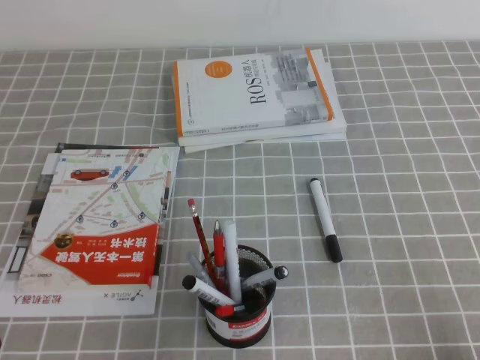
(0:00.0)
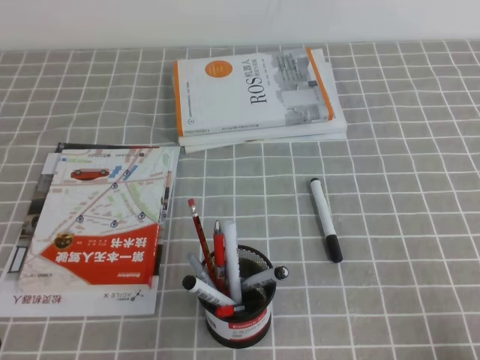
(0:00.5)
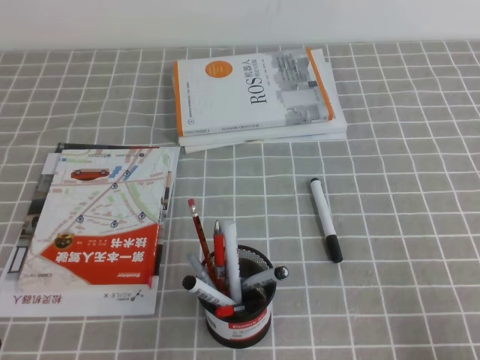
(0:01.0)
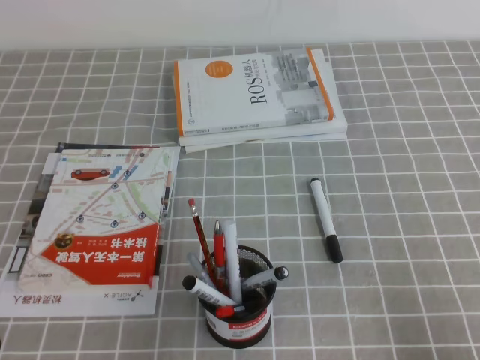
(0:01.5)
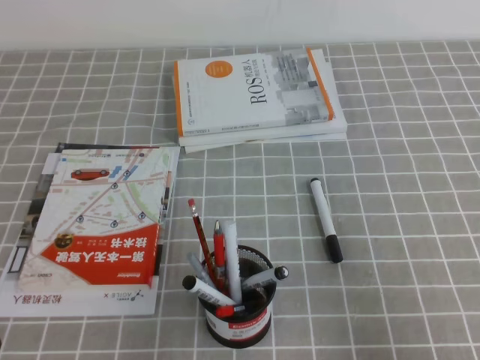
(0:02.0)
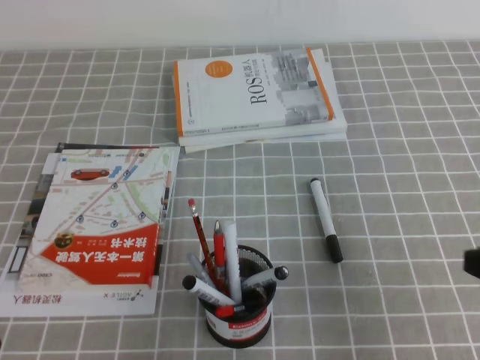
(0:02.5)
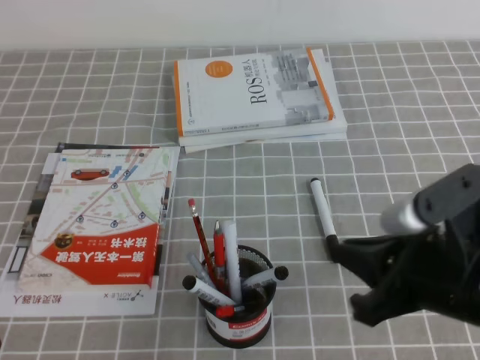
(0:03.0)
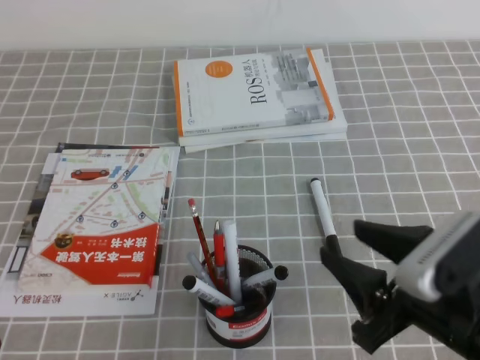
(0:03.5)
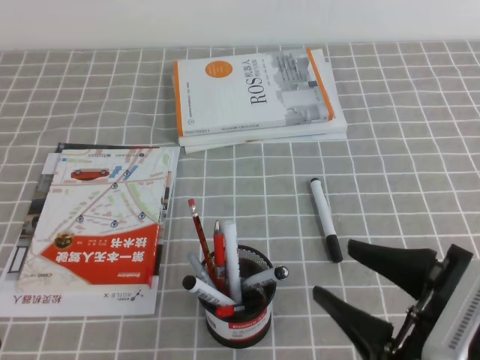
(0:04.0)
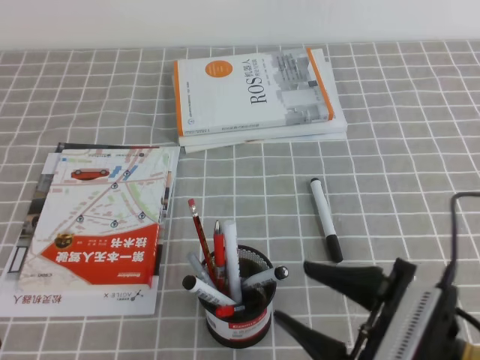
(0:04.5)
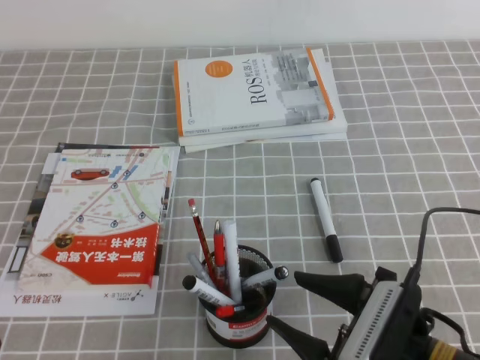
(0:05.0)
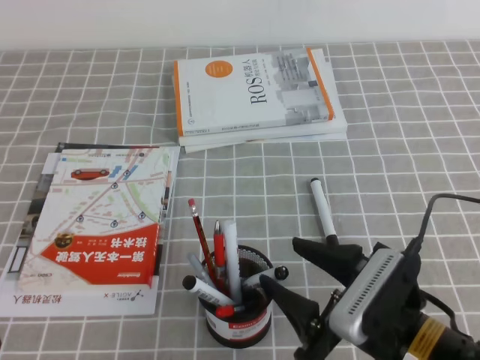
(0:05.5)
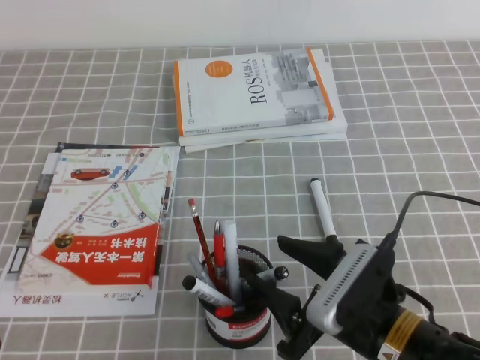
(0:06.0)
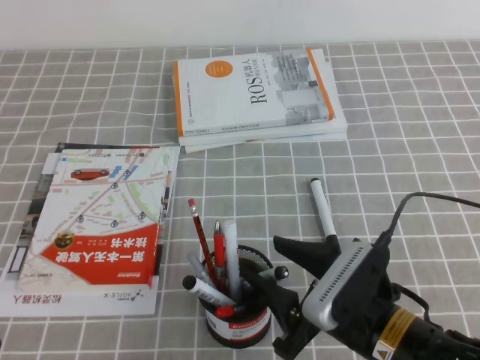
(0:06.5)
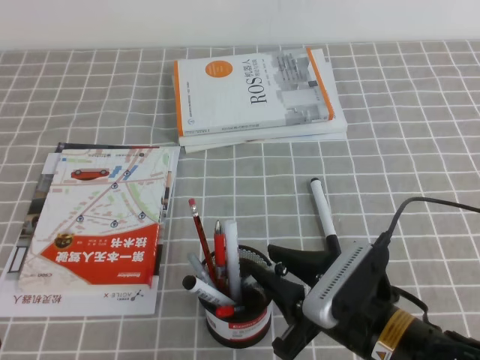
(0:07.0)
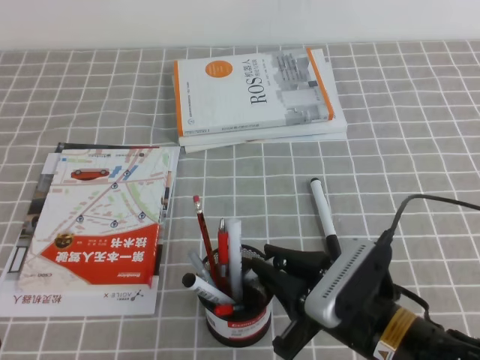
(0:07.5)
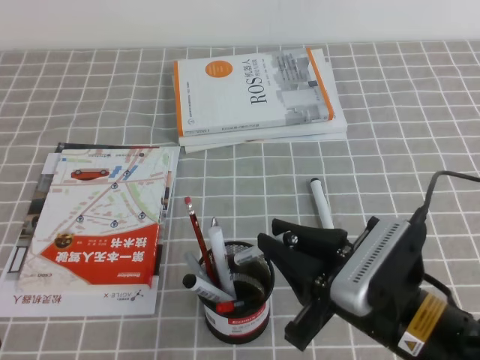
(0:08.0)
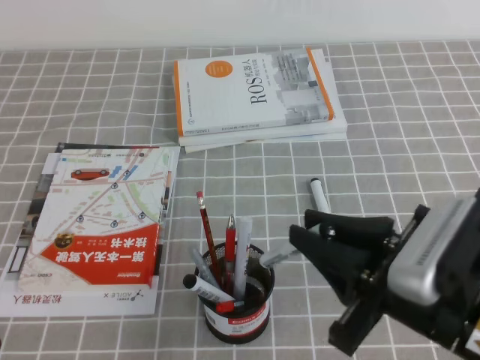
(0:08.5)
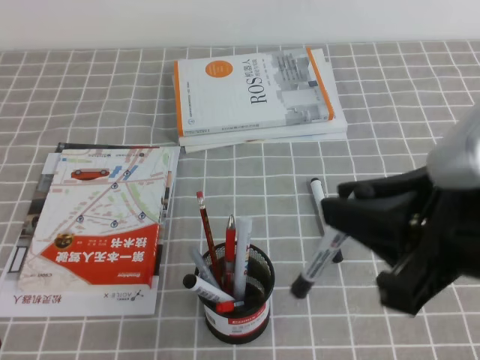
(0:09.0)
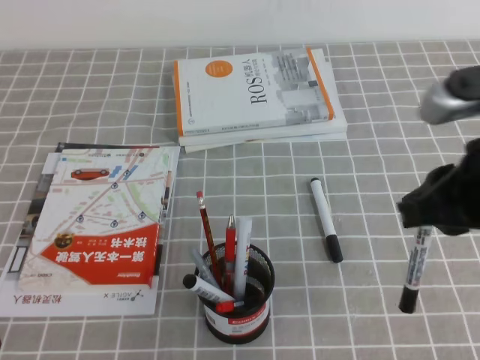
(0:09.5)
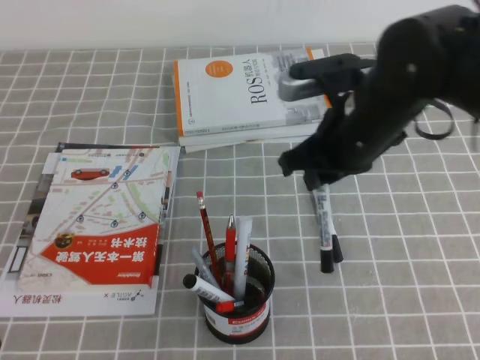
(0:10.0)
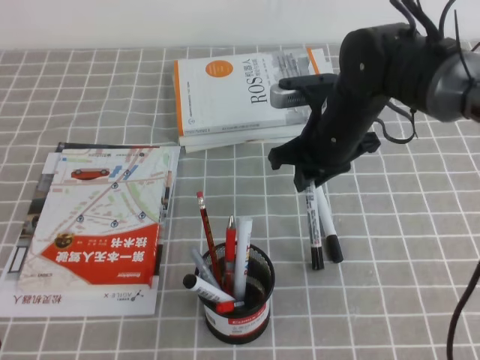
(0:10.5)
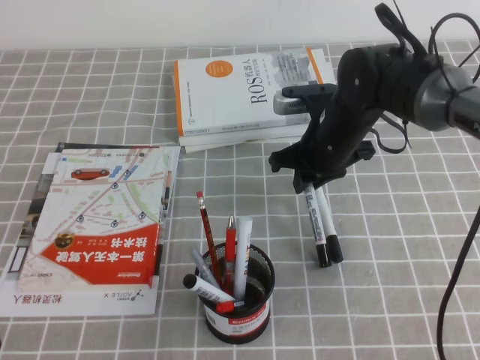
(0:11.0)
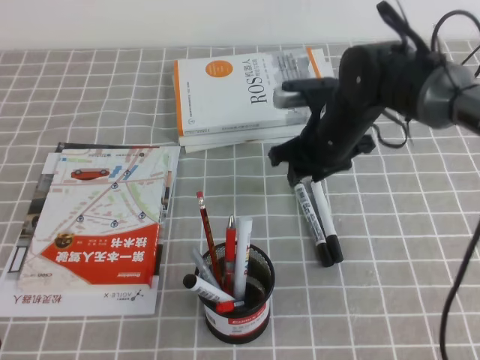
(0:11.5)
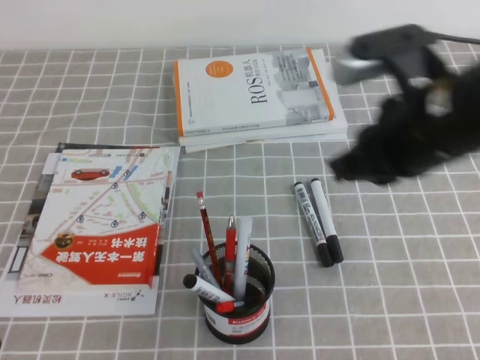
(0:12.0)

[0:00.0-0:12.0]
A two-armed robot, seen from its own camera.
0:00.0 to 0:02.0: The right gripper travels upward by about 10 cm.
0:02.0 to 0:04.0: The right gripper shifts some 10 cm to the left, and opens up.
0:04.0 to 0:06.0: The right gripper heads to the left and downward, covering some 10 cm.
0:06.0 to 0:08.0: The right gripper closes up.
0:08.0 to 0:10.0: The right gripper travels forward and upward by roughly 20 cm.
0:10.0 to 0:12.0: The right gripper travels forward and back again, roughly 10 cm each way.

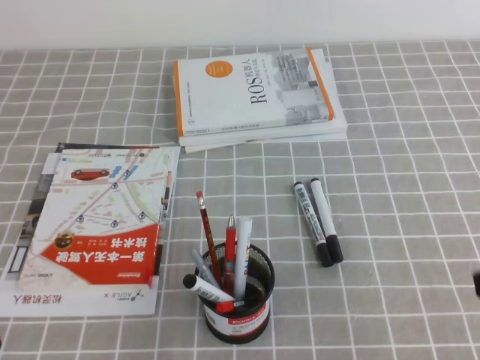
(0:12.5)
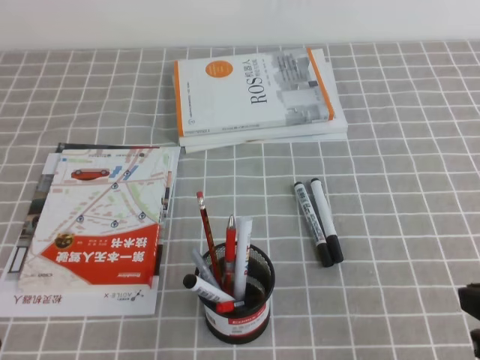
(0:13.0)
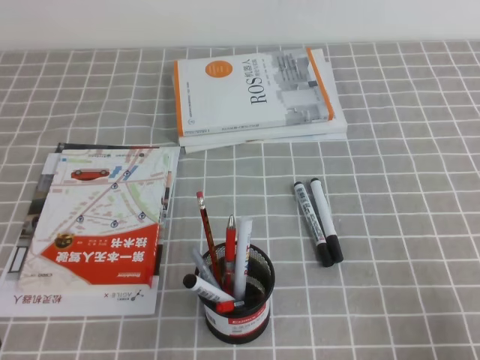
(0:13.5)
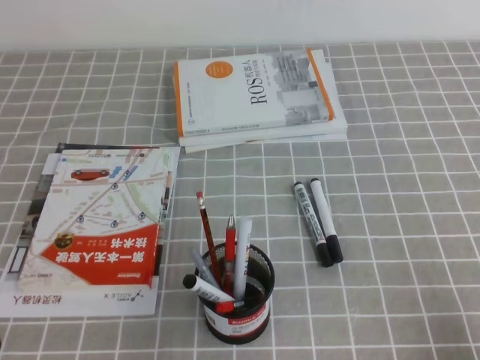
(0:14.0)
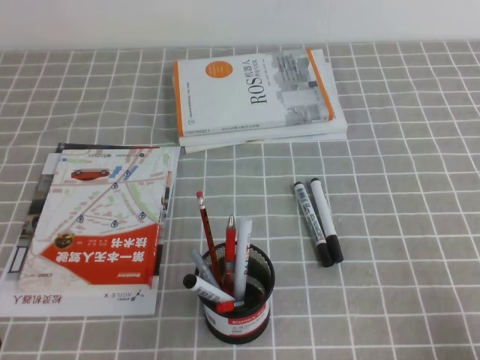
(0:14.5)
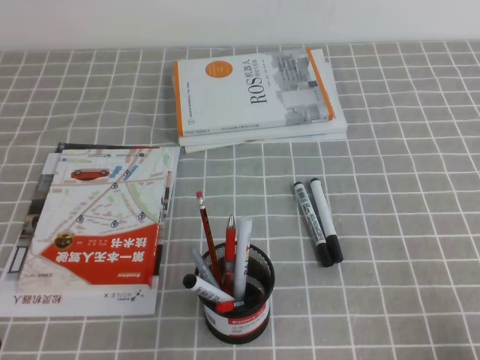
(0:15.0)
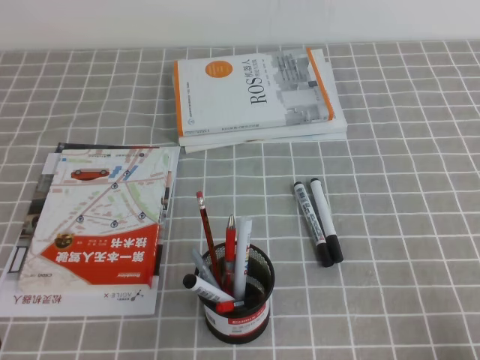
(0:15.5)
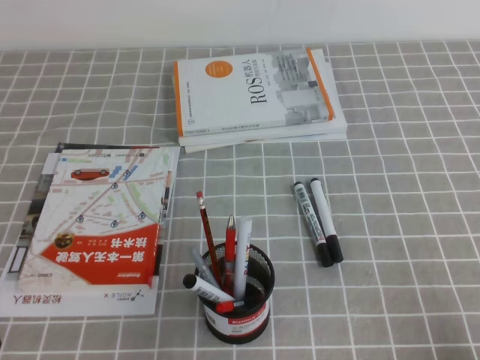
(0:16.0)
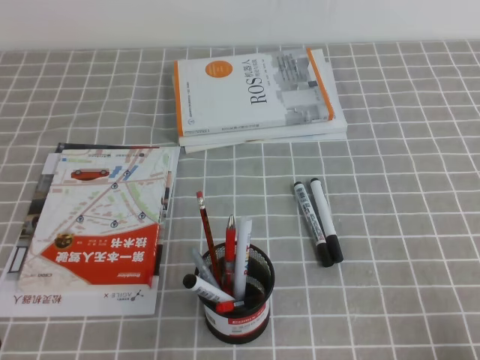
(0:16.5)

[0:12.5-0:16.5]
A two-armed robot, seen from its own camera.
Step, 0:12.5 to 0:16.5: Pick up the pen from the pen holder.
0:12.5 to 0:14.5: The right gripper travels downward, to the right and backward by some 20 cm.
